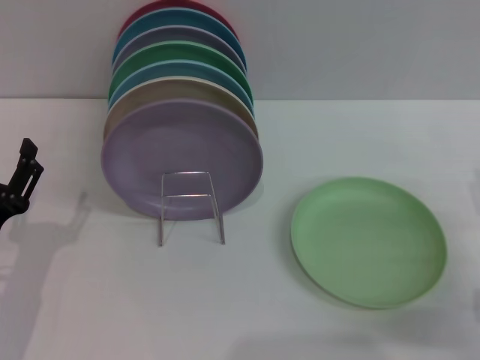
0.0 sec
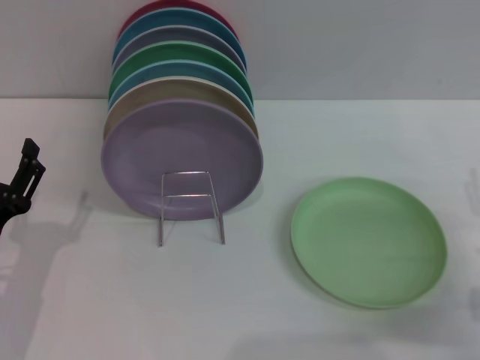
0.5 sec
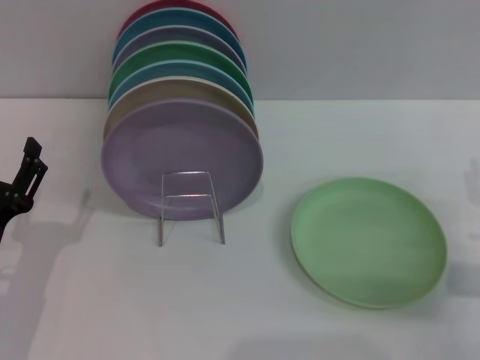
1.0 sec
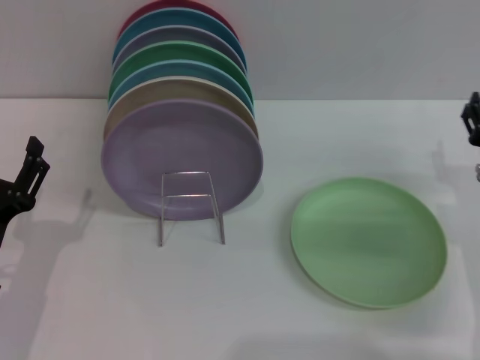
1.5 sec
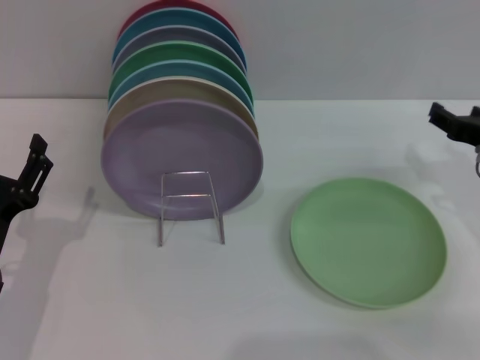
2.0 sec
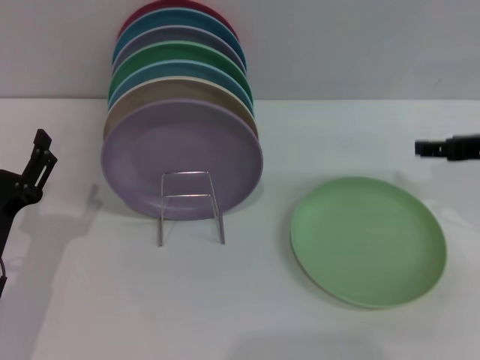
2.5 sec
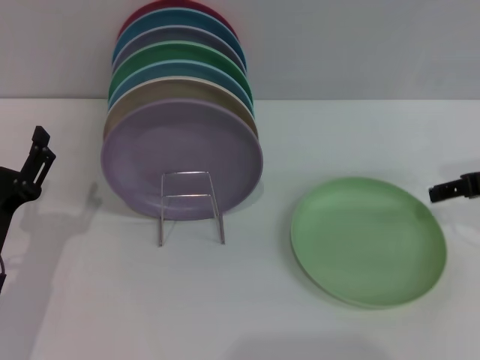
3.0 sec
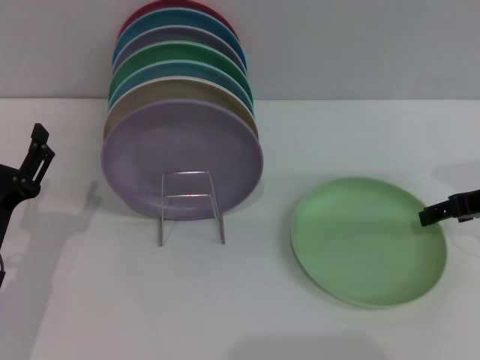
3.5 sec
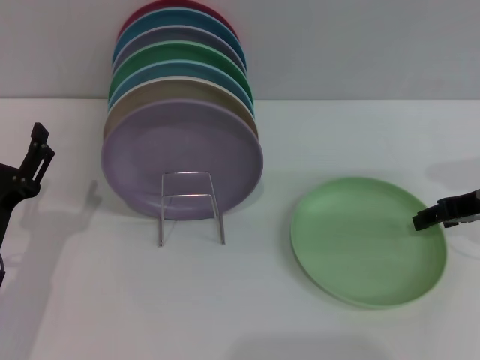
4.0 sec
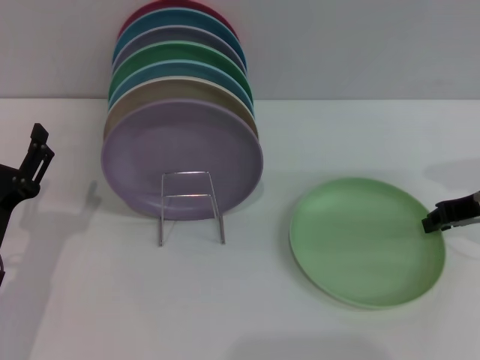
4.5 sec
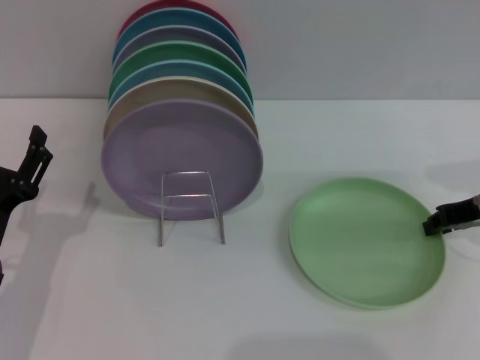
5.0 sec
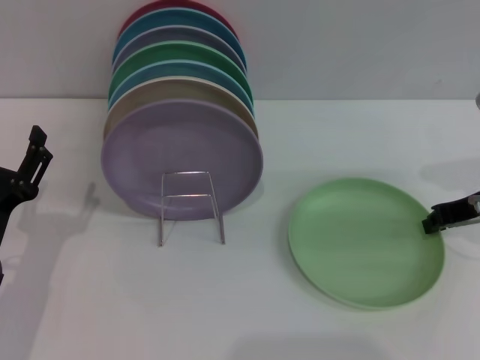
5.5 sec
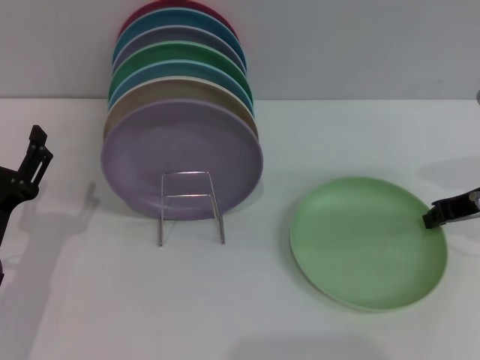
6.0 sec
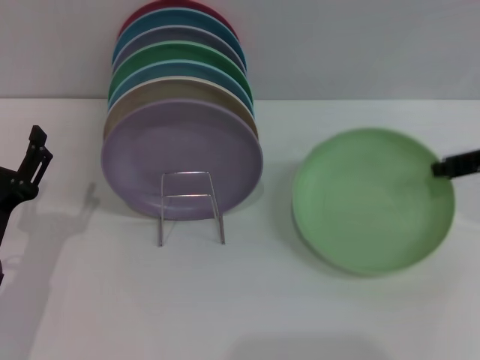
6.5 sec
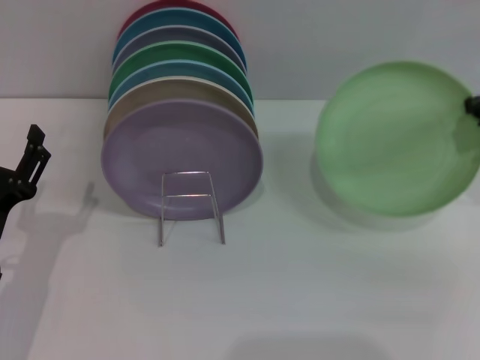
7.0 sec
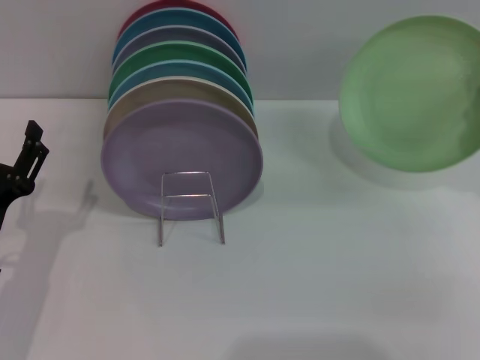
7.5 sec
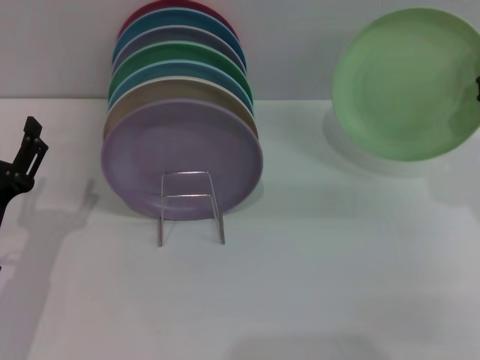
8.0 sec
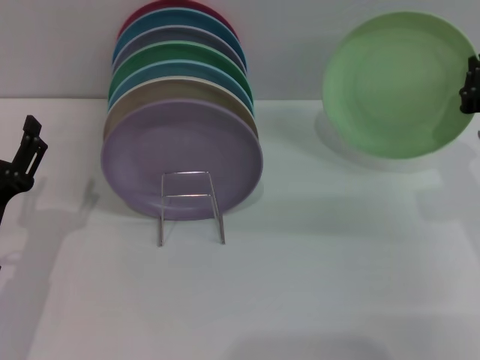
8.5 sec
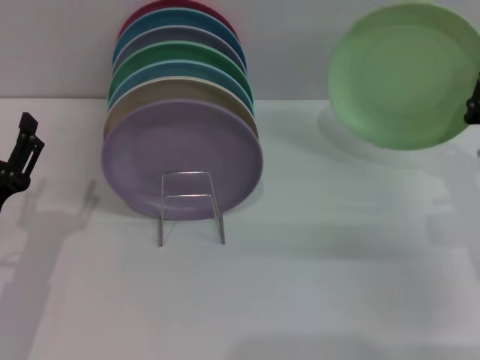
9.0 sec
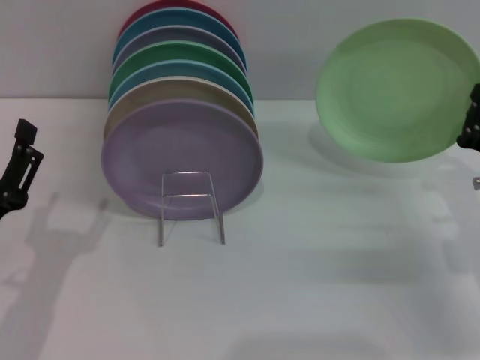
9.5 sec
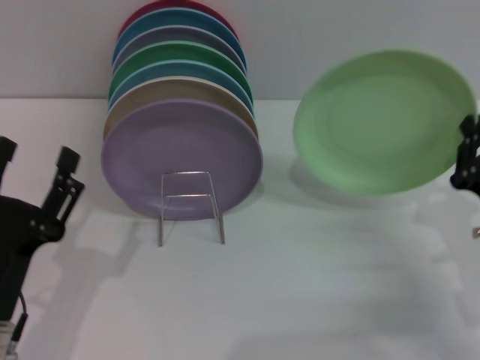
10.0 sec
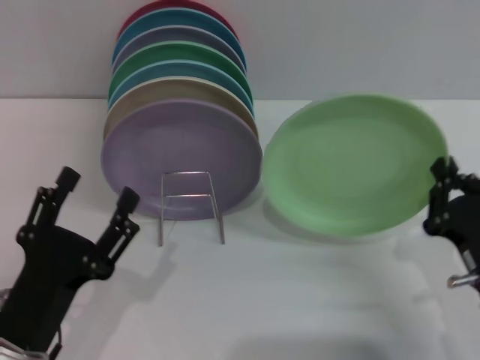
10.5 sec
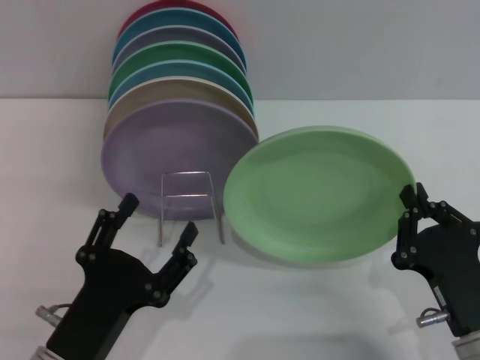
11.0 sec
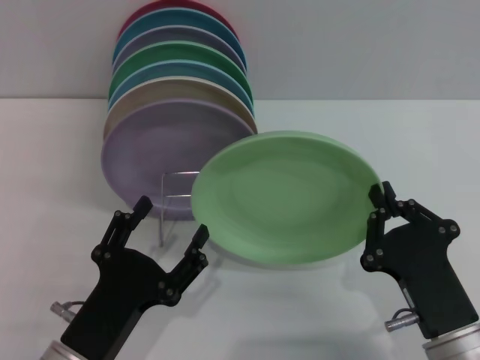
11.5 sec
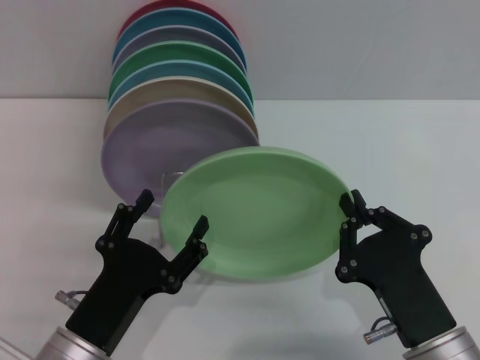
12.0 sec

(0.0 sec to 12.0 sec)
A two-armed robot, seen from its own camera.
Task of the whole recording: Grip the plate with one hand, pass it to the other, then set it on the shelf.
Step, 0.0 sec - 8.5 sec: Pick up the plate with the right gripper.
0.0 sec - 2.0 sec: The right gripper shifts approximately 10 cm forward and upward.
4.0 sec - 6.0 sec: The right gripper closes up.
8.0 sec - 10.0 sec: The right gripper is displaced downward and backward by roughly 15 cm. The left gripper heads backward, covering approximately 5 cm.
10.0 sec - 12.0 sec: The left gripper travels to the right by roughly 5 cm; the right gripper heads to the left and backward, covering roughly 15 cm.

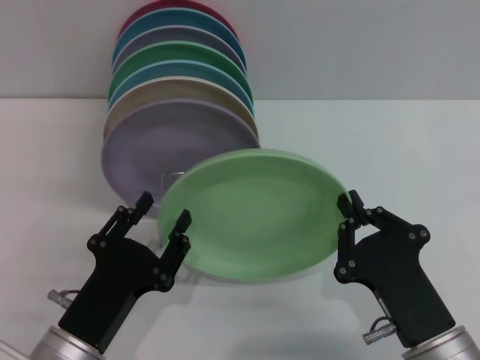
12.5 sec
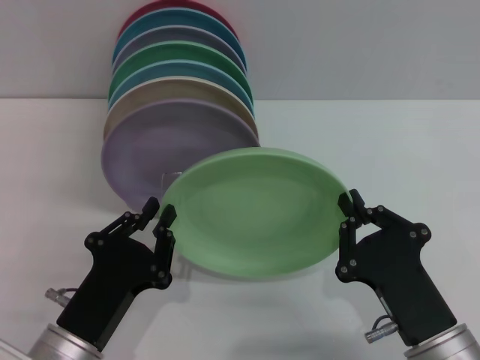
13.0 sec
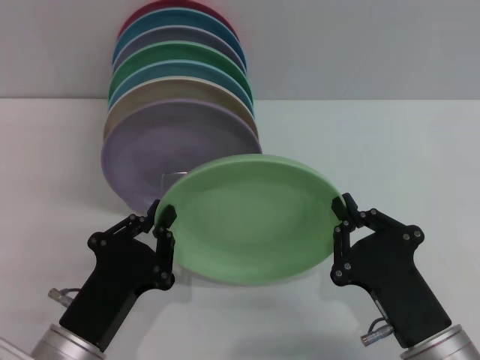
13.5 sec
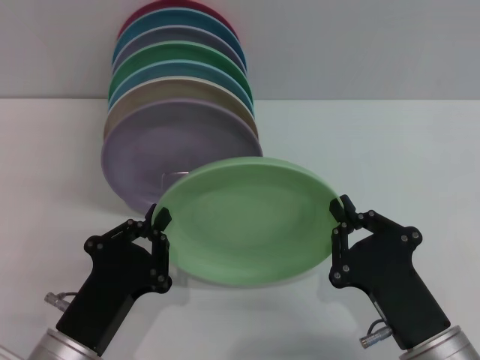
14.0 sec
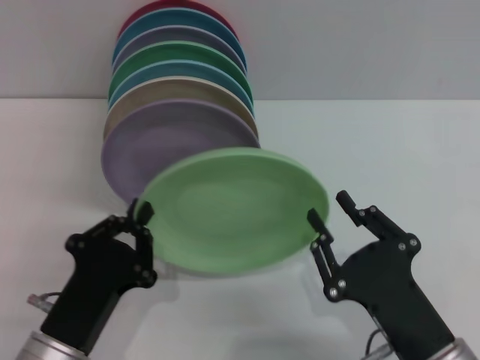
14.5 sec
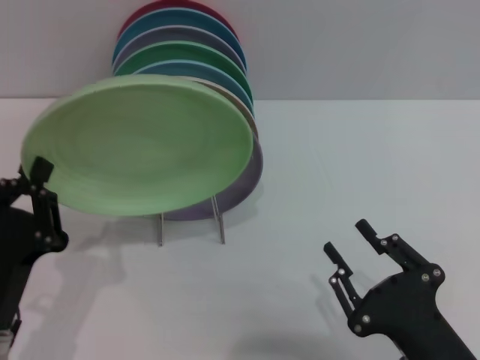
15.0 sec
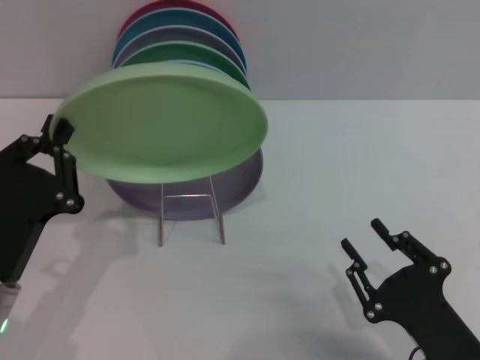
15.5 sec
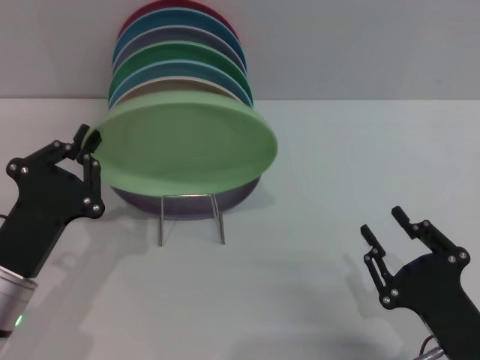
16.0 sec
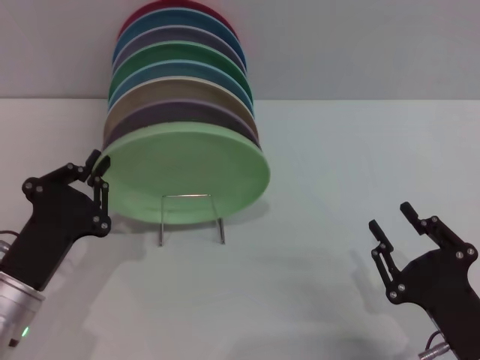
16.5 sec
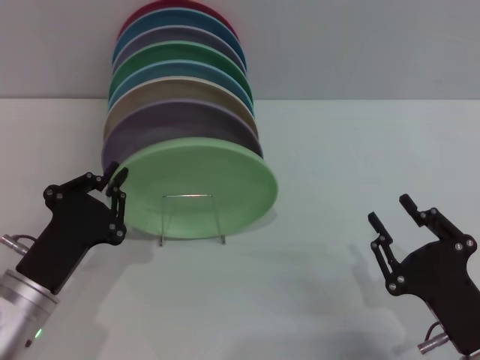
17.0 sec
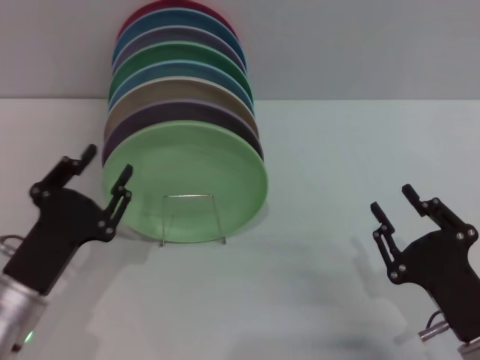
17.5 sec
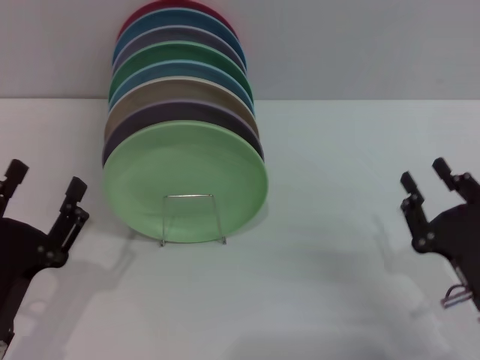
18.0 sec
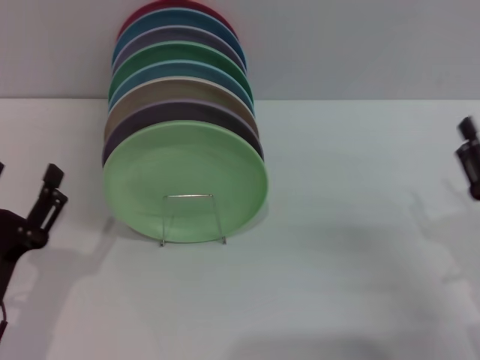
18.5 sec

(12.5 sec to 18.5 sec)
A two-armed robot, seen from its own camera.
Task of the whole recording: Grip the plate with one hand, pass it to the other, then set it on the shelf.
Step, 12.5 sec - 14.5 sec: Pass the plate from the right gripper to the left gripper.
Step, 15.0 sec - 17.5 sec: Place the plate on the shelf with the left gripper.
12.5 sec - 14.5 sec: The left gripper closes.
14.5 sec - 16.5 sec: The left gripper moves forward and to the left, roughly 10 cm; the right gripper goes roughly 5 cm to the right.
16.5 sec - 18.5 sec: The right gripper is displaced forward and to the right by some 10 cm; the left gripper opens its fingers.

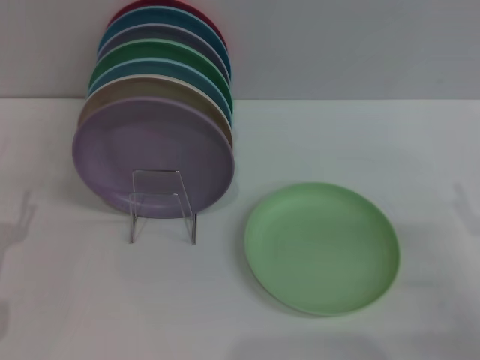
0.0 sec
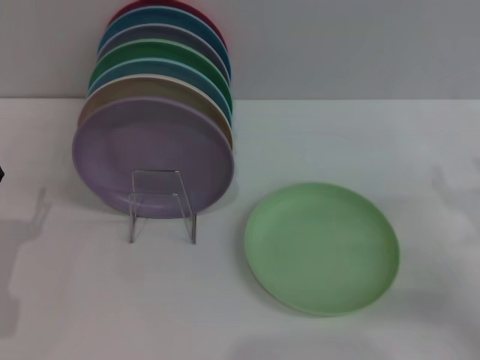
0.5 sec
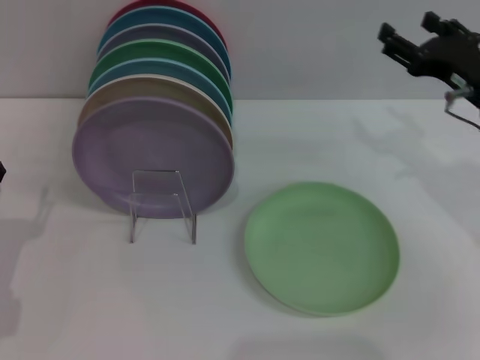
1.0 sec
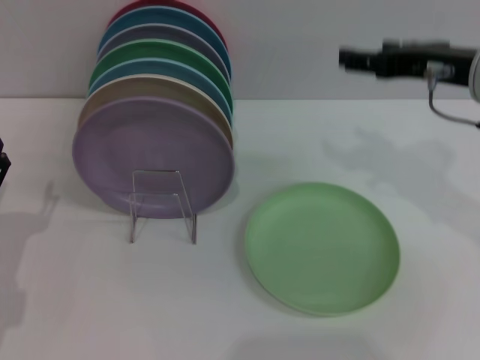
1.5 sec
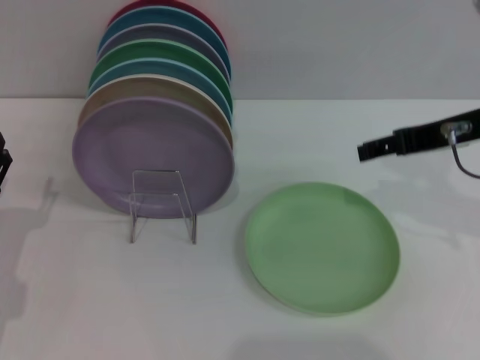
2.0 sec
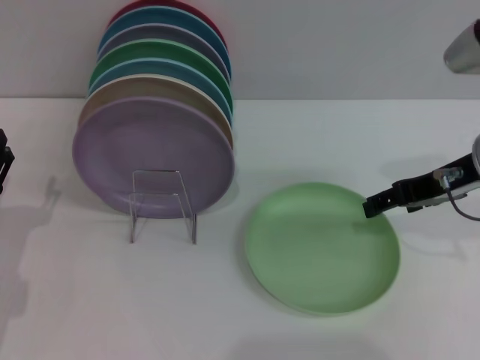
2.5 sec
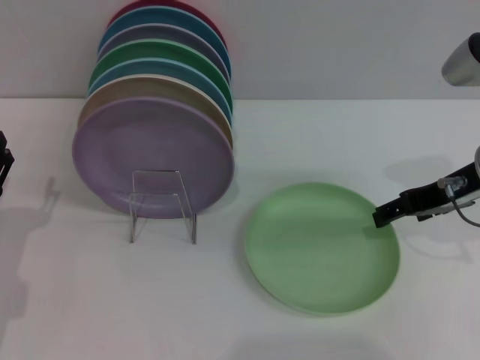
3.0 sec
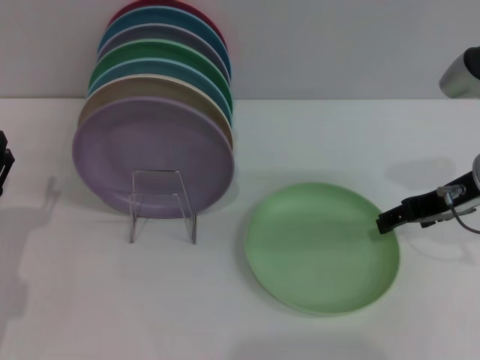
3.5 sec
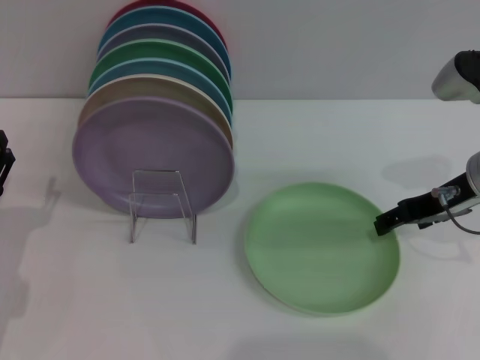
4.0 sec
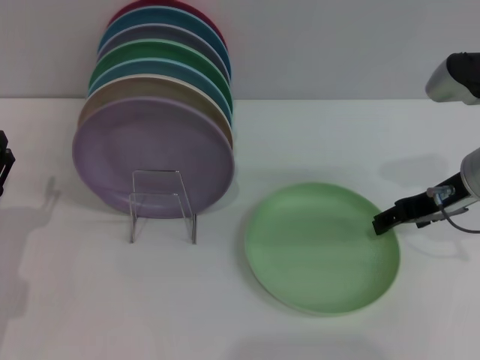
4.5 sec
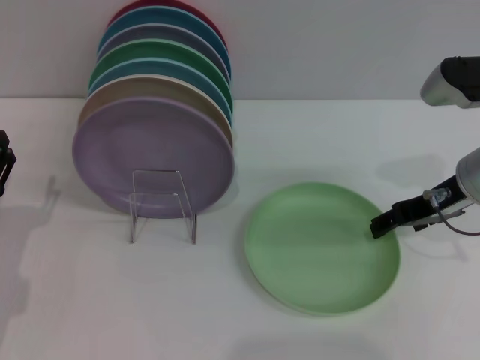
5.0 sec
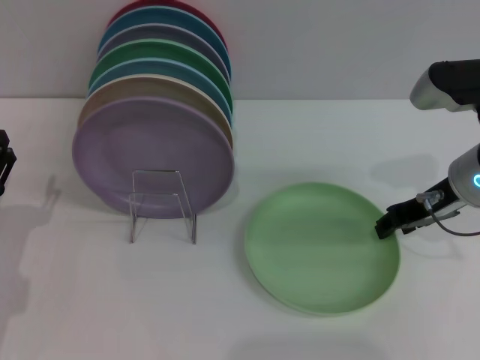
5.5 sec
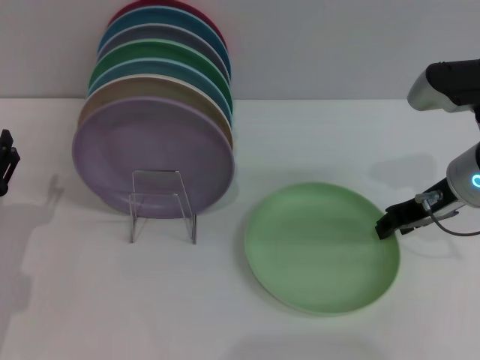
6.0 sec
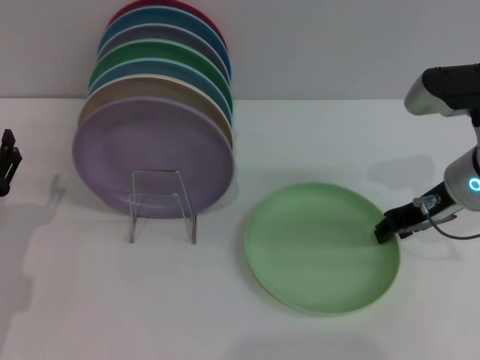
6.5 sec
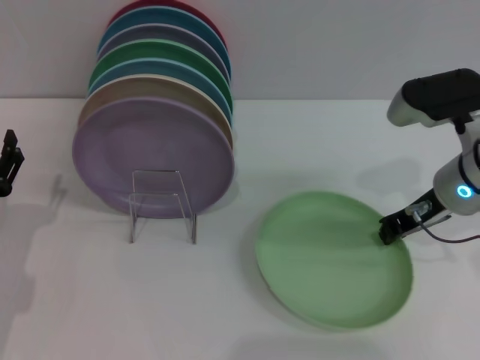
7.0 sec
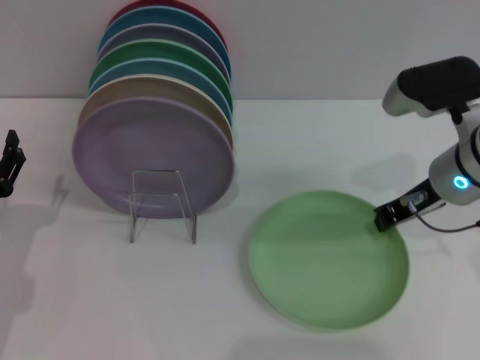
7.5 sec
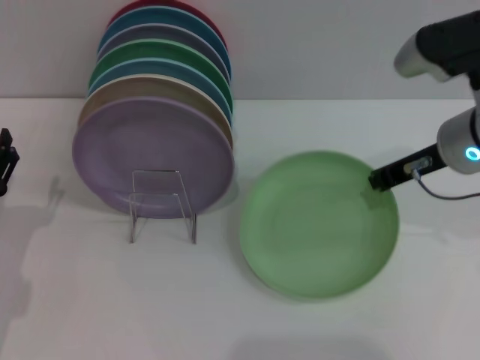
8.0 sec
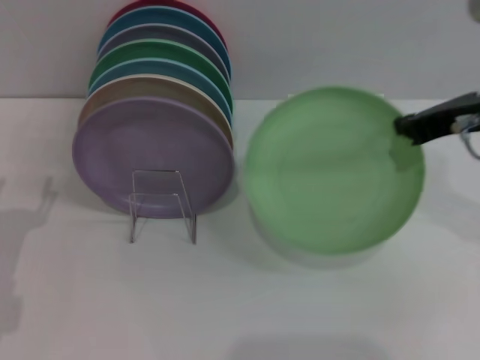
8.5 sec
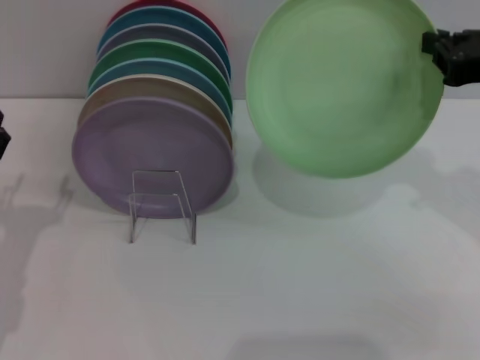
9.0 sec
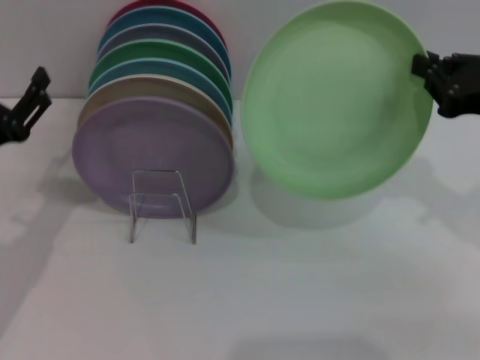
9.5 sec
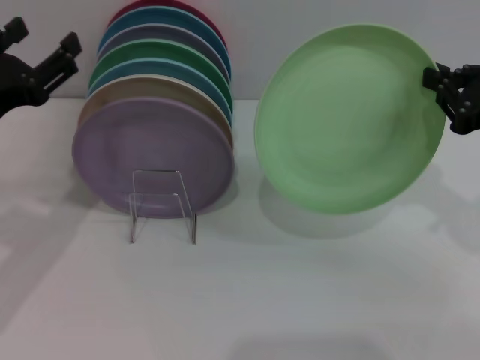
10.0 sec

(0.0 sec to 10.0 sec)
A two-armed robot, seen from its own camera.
Task of the whole recording: Grip the plate with one hand, pass it to the other, then set it on the shelf.
Step, 0.0 sec - 8.5 sec: Pick up the plate with the right gripper.
0.0 sec - 2.0 sec: The right gripper goes some 20 cm upward, forward and to the left.
2.0 sec - 4.0 sec: The right gripper moves downward, some 5 cm.
4.0 sec - 6.0 sec: The right gripper closes up.
6.0 sec - 8.0 sec: The right gripper ends up roughly 5 cm from where it was, and closes.
8.0 sec - 10.0 sec: The right gripper is displaced to the right and backward by about 10 cm, while the left gripper travels upward by approximately 15 cm.
